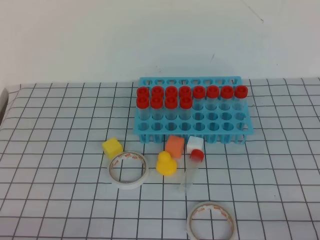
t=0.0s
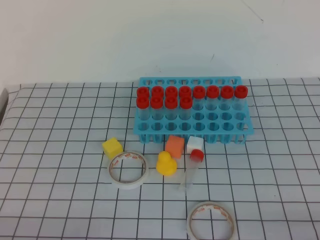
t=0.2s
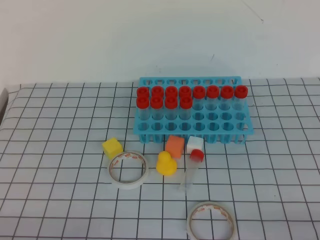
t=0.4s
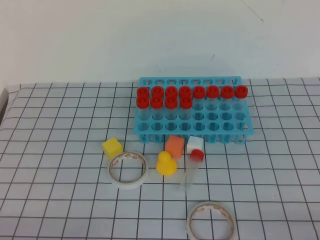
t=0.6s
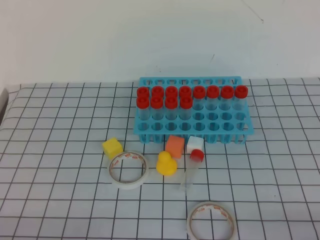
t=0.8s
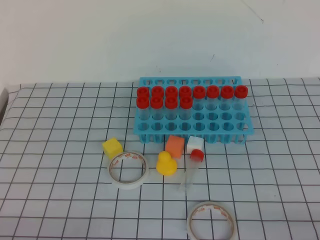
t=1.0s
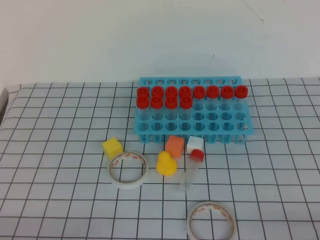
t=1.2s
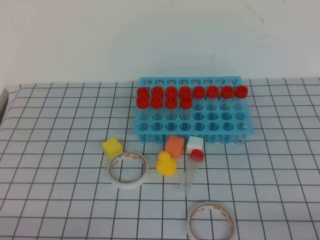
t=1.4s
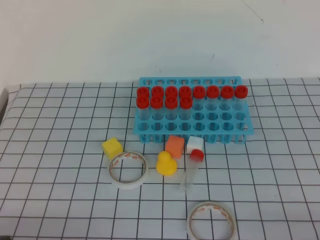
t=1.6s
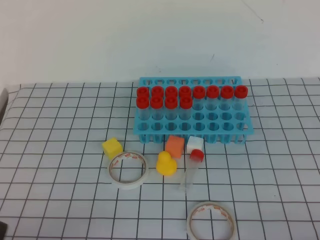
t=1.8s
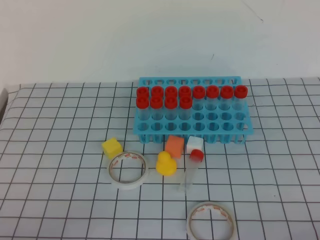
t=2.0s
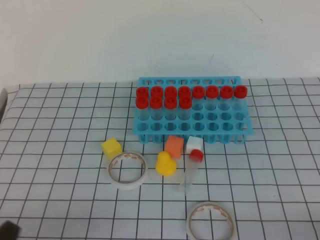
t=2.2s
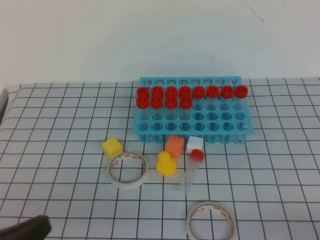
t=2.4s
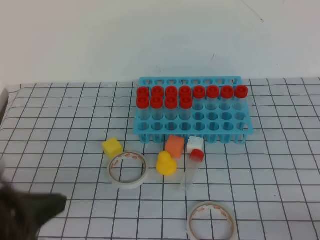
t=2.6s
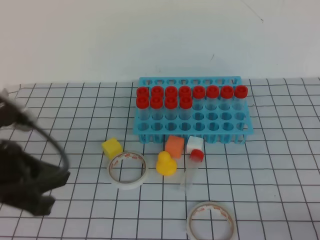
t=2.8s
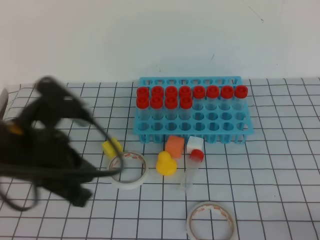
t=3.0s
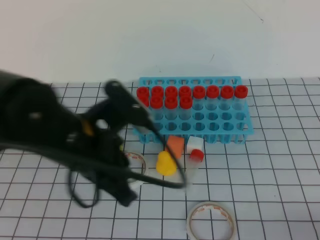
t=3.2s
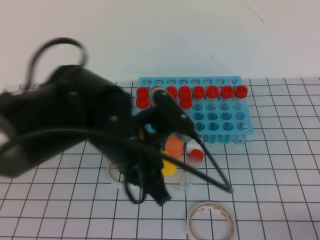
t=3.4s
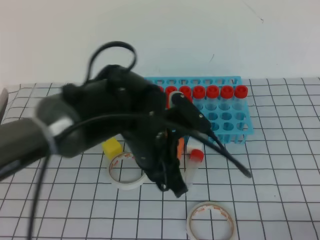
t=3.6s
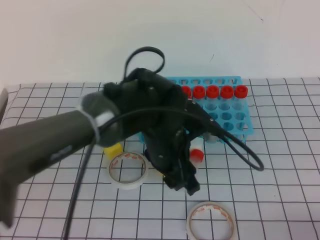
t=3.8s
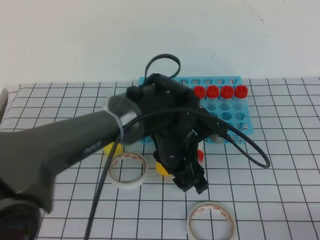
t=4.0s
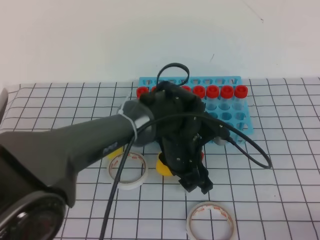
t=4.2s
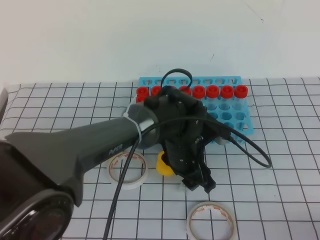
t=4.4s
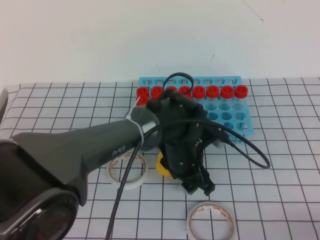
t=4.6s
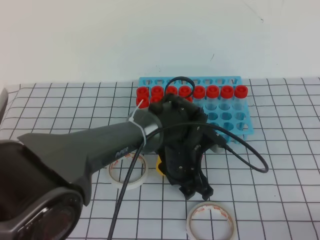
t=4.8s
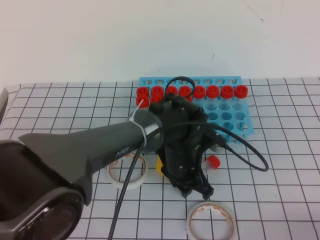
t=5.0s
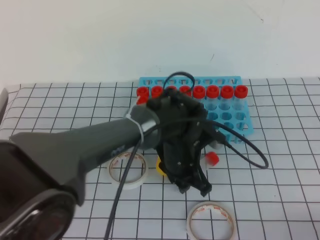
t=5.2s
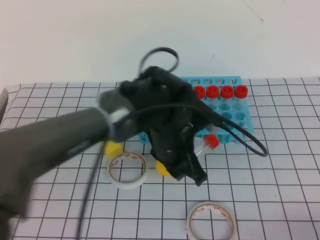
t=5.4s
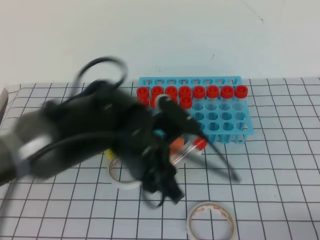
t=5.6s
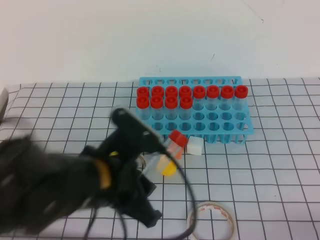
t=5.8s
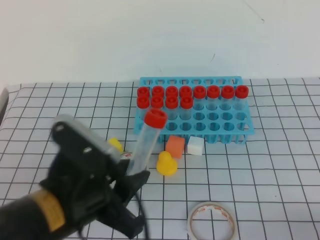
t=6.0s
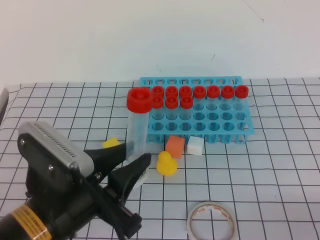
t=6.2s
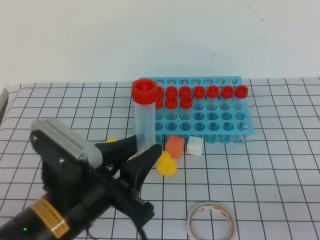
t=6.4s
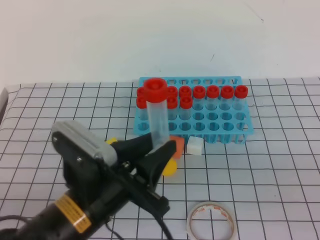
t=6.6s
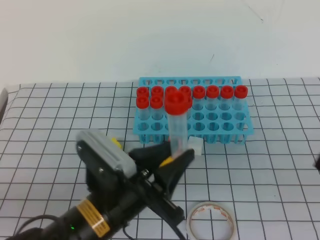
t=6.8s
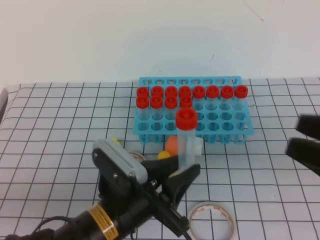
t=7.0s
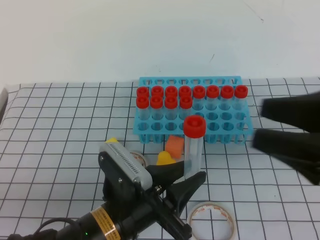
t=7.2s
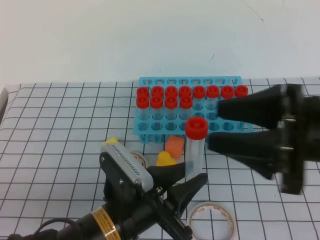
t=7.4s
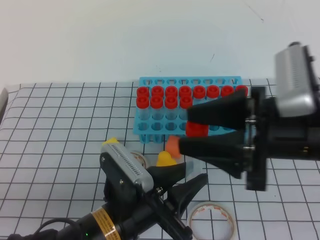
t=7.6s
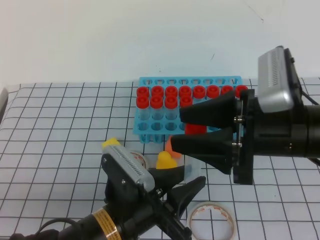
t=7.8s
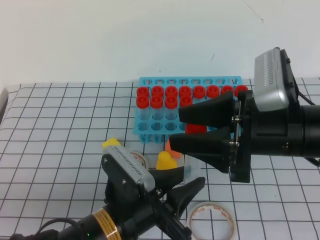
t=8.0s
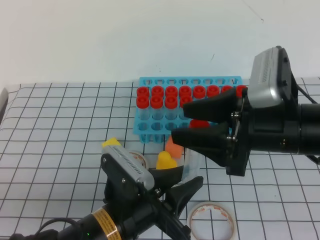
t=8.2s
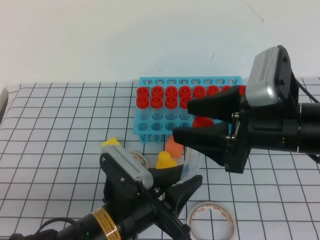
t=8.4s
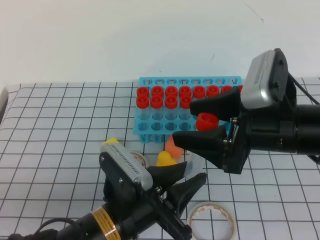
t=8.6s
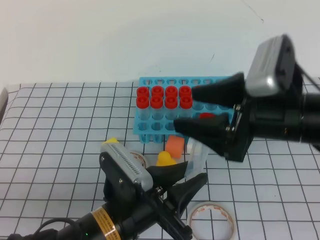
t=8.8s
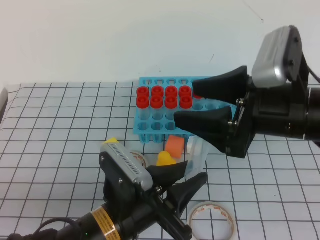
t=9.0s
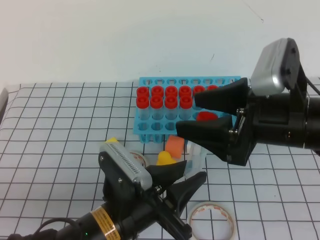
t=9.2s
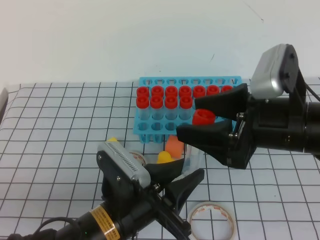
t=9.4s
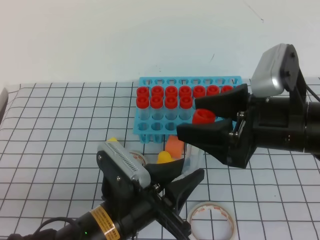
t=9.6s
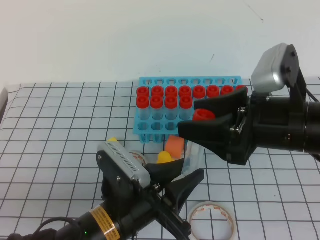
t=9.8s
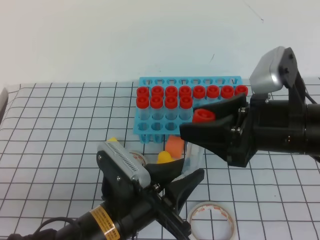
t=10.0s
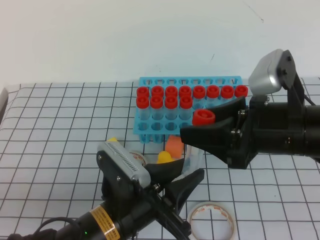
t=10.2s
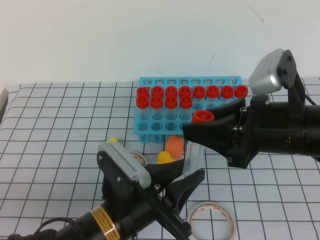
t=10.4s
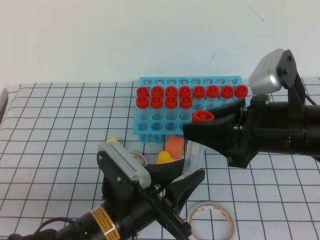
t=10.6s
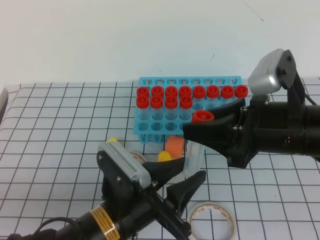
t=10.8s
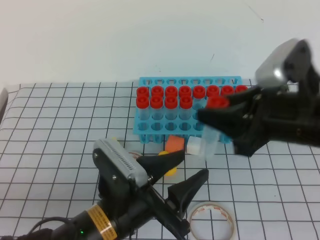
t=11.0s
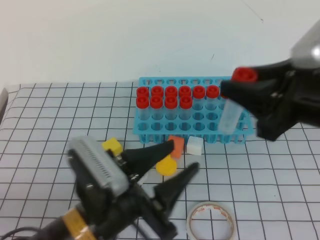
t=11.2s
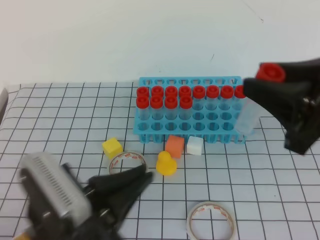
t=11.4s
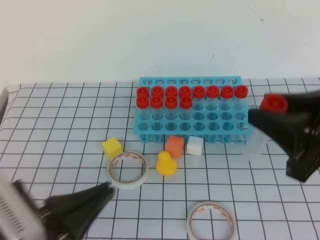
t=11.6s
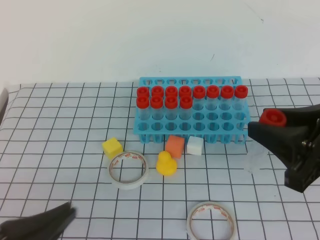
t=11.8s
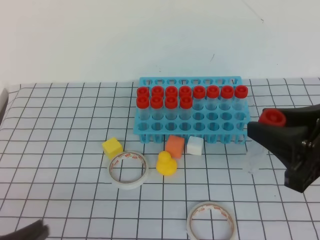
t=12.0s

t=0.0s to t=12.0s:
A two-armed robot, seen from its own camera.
t=1.6s to t=3.0s: The left gripper heads forward, upward and to the right, covering about 20 cm.
t=3.0s to t=4.4s: The left gripper heads to the right, downward and forward, covering approximately 30 cm, and opens up.
t=4.4s to t=6.0s: The left gripper travels backward, to the left and upward by some 25 cm, and closes its fingers.
t=6.0s to t=7.6s: The right gripper travels forward, to the left and upward by about 25 cm, and opens up, while the left gripper is displaced downward by roughly 10 cm.
t=7.6s to t=9.0s: The grippers move only a little.
t=9.0s to t=10.4s: The right gripper closes its fingers.
t=10.4s to t=12.0s: The left gripper is displaced to the left, backward and upward by roughly 20 cm, and closes its fingers, while the right gripper is displaced to the right and backward by roughly 10 cm.

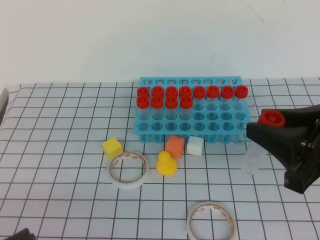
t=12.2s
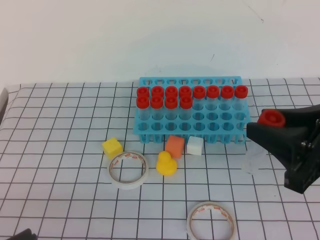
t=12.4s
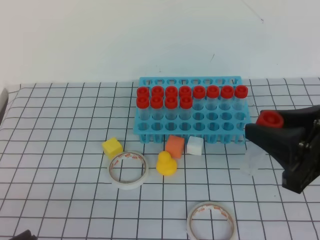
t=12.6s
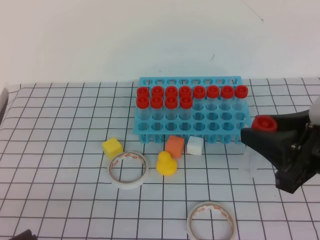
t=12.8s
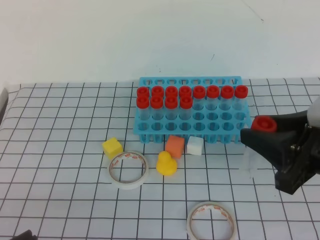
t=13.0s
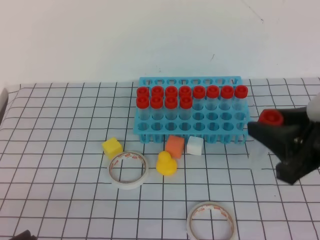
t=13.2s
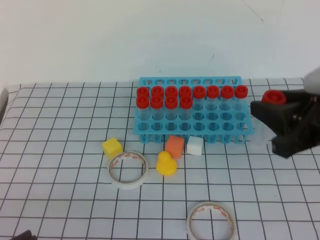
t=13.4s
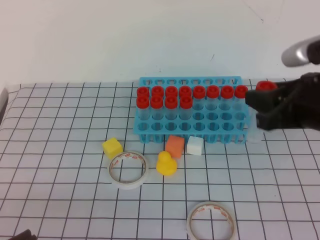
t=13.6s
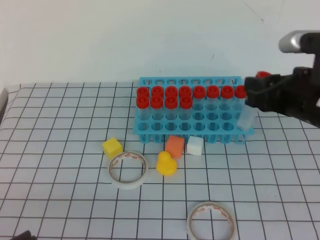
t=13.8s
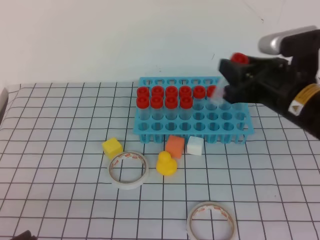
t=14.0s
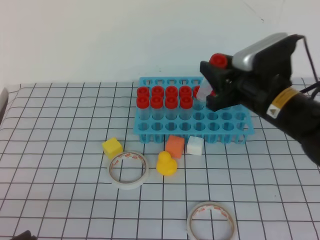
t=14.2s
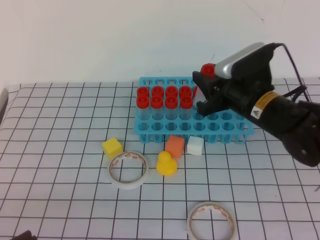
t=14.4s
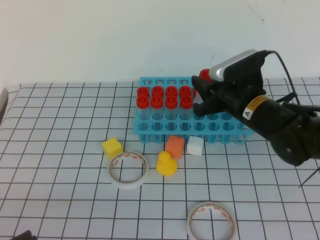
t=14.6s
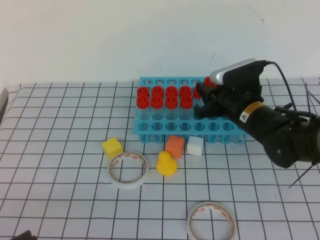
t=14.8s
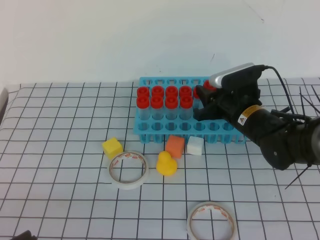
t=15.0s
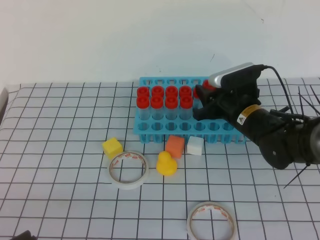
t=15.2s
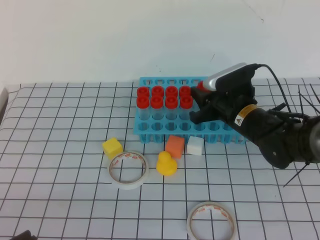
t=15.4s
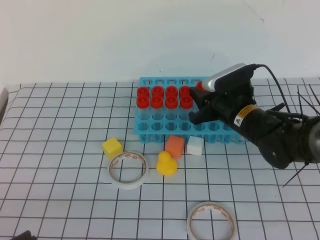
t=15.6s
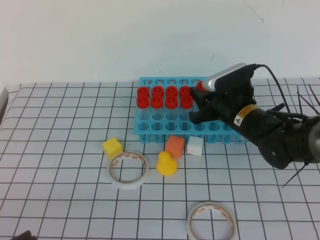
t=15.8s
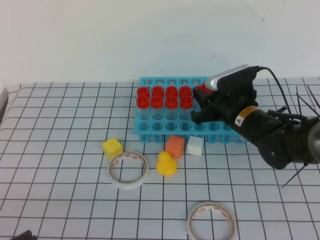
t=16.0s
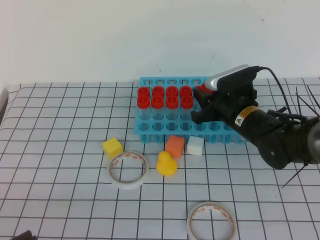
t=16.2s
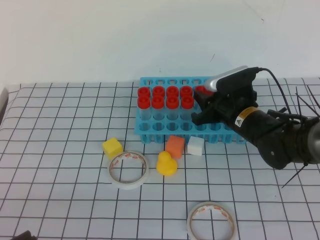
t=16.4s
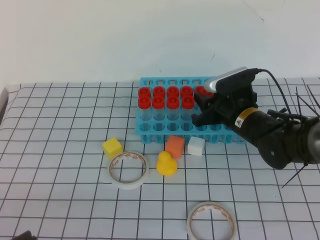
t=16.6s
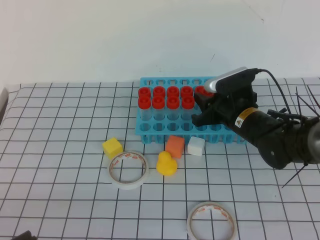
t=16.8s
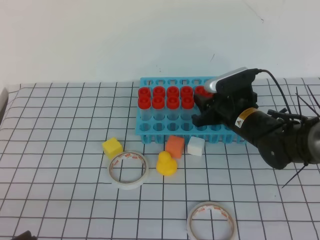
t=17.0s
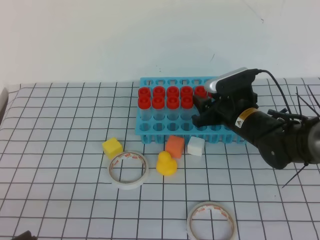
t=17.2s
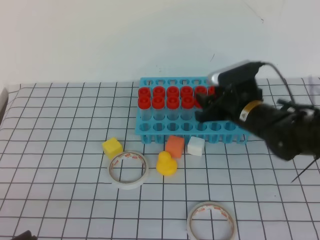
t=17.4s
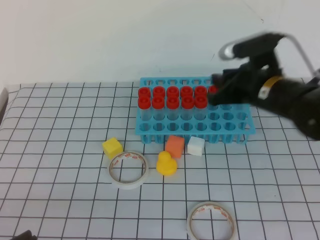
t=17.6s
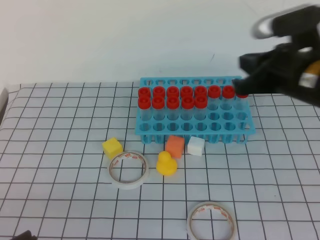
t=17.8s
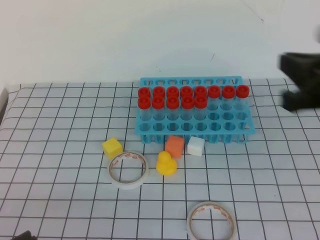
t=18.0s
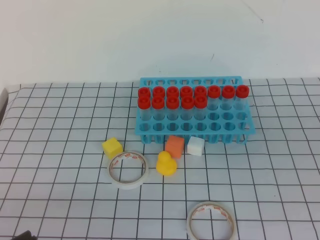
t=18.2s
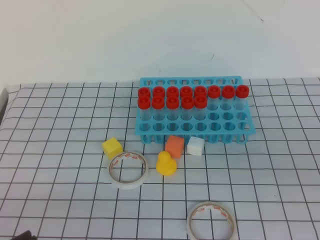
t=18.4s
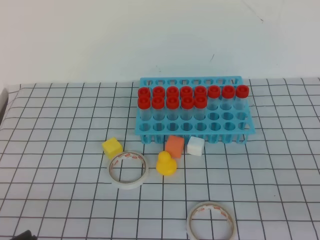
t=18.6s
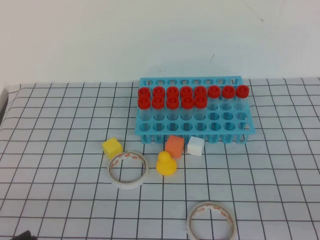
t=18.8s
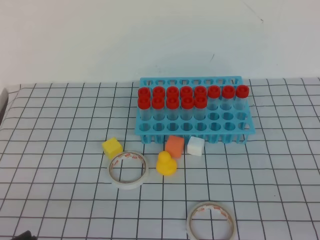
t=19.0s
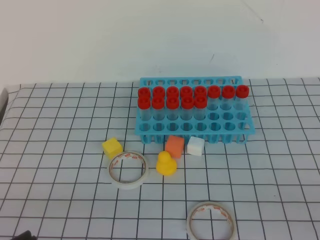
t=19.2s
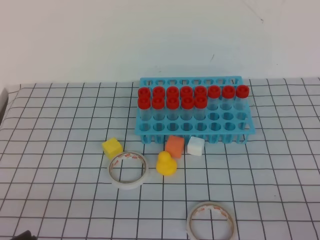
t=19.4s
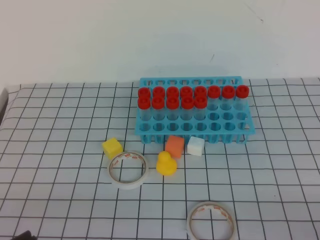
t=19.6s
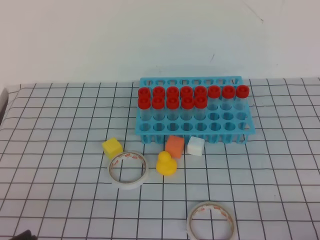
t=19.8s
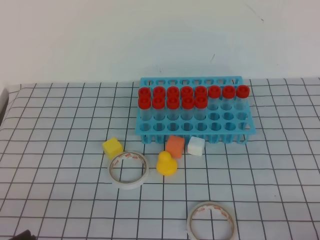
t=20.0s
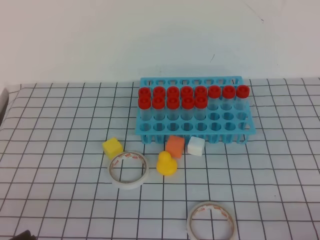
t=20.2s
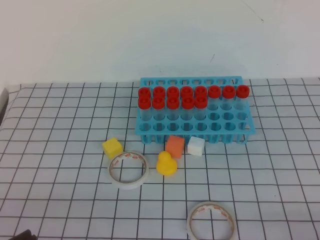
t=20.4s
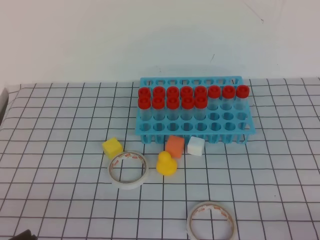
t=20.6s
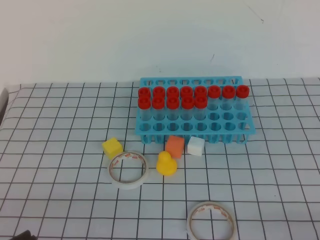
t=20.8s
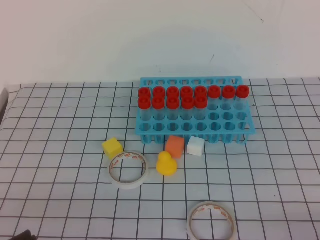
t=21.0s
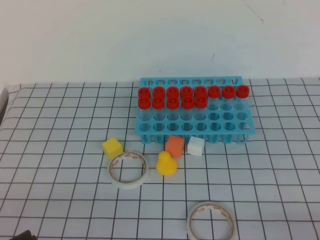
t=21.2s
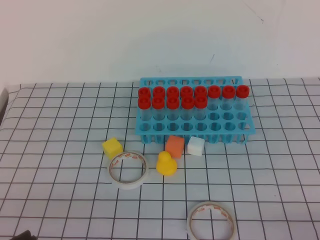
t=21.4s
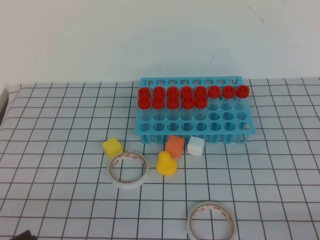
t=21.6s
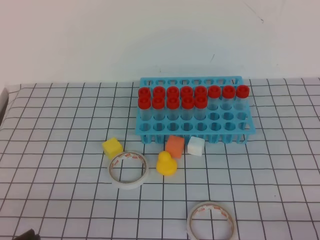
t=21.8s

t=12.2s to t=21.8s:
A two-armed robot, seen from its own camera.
t=12.2s to t=13.8s: The right gripper moves forward, about 10 cm.
t=13.8s to t=15.4s: The right gripper shifts approximately 20 cm downward, forward and to the left.
t=15.4s to t=17.0s: The two grippers keep their place.
t=17.0s to t=18.6s: The right gripper heads backward, to the right and upward, covering roughly 40 cm, and closes up.

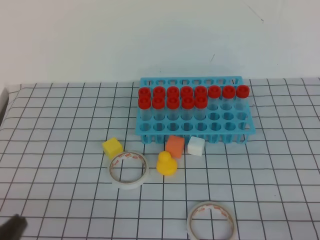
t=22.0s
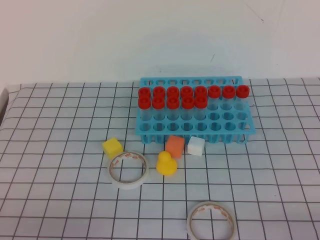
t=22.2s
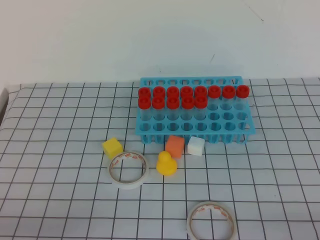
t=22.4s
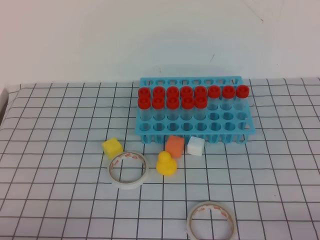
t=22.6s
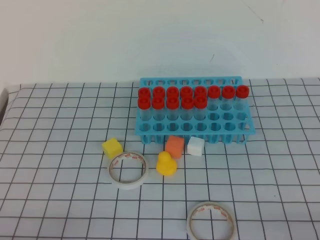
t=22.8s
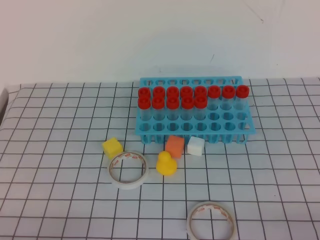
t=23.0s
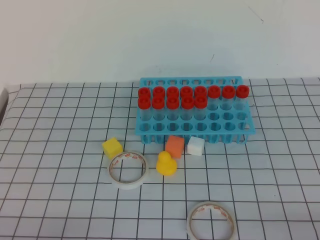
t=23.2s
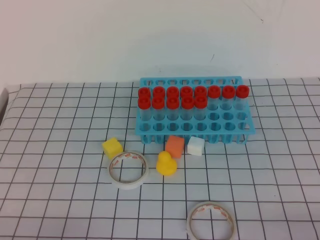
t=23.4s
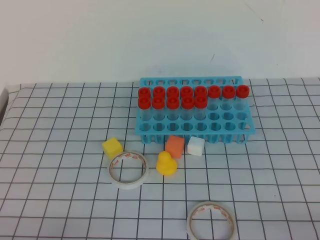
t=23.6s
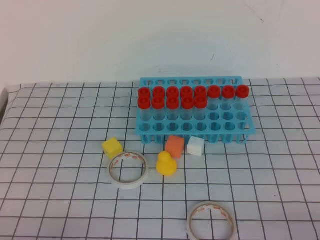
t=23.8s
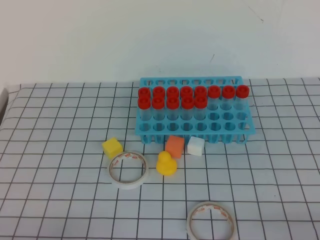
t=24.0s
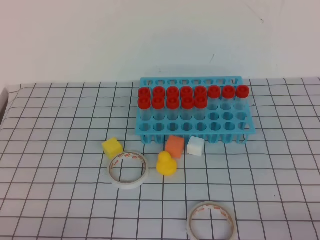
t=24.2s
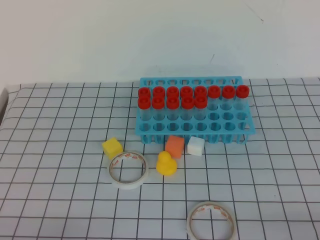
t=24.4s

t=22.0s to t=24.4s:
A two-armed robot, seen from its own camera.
t=22.0s to t=23.2s: The left gripper shifts about 5 cm downward.
t=23.2s to t=24.4s: The two grippers keep their place.
